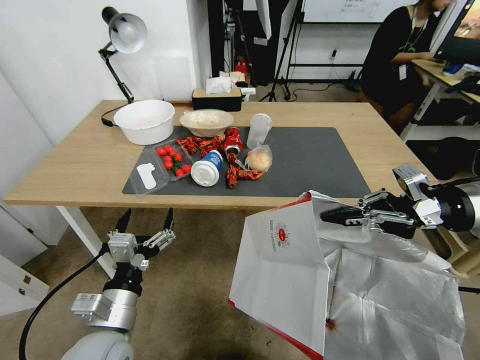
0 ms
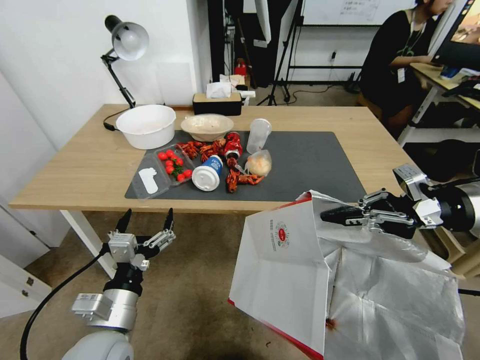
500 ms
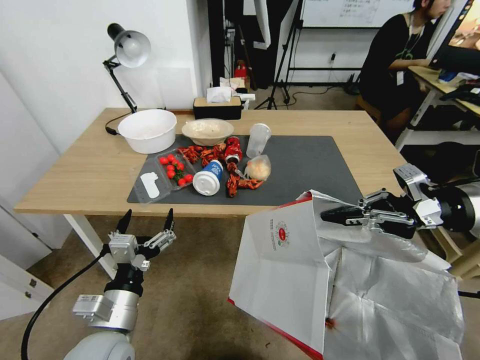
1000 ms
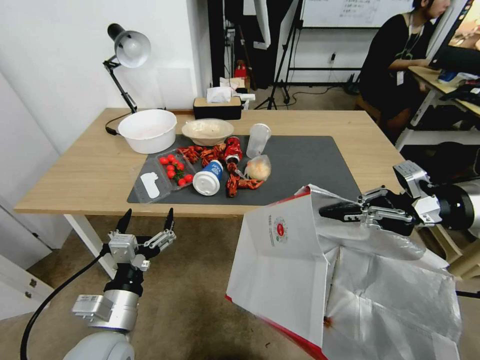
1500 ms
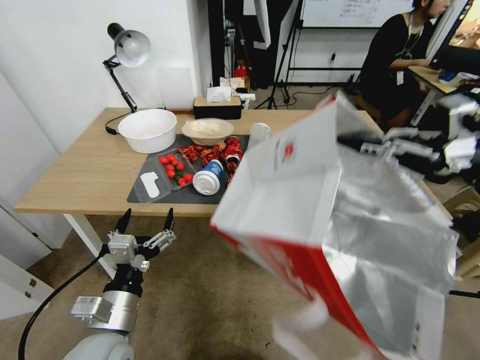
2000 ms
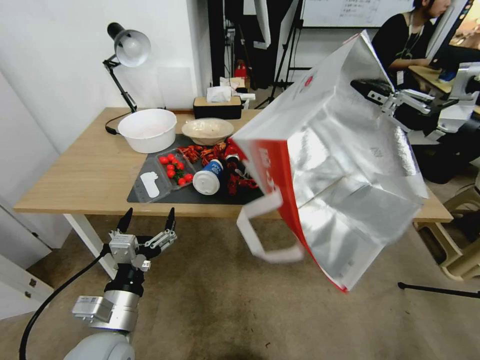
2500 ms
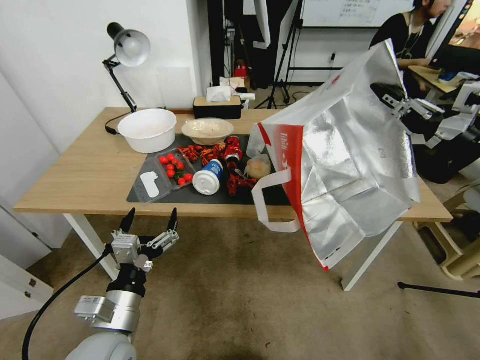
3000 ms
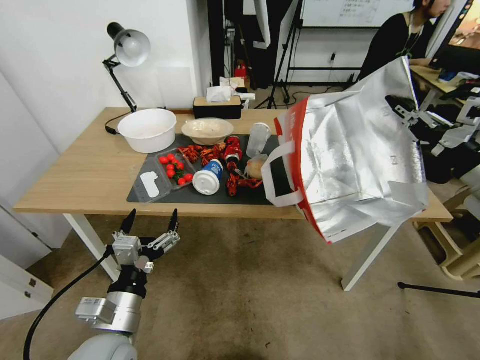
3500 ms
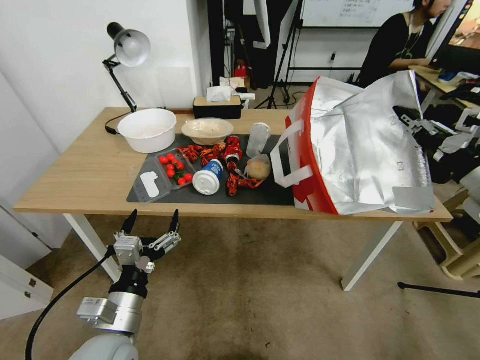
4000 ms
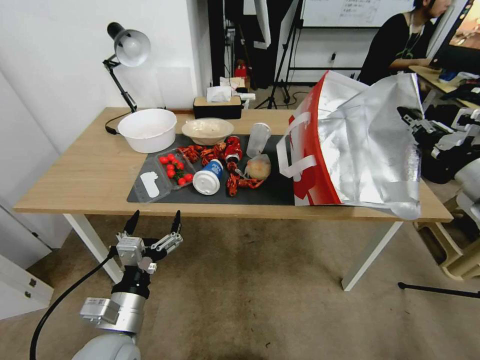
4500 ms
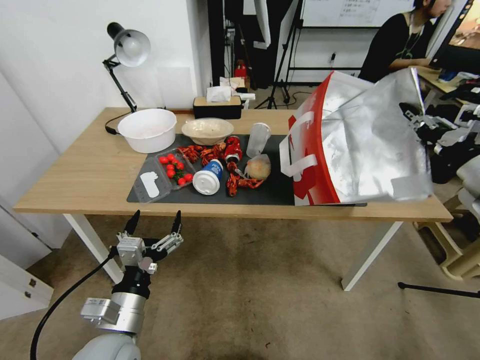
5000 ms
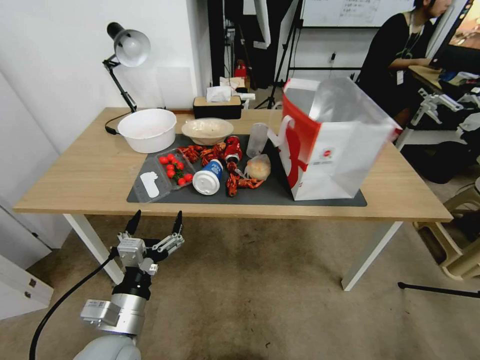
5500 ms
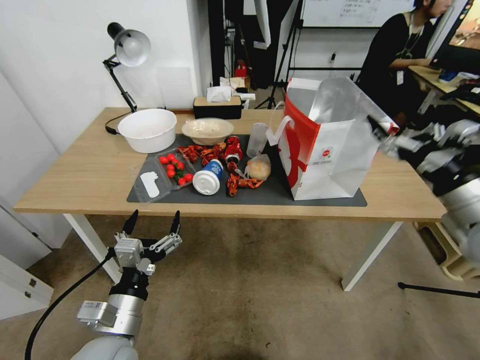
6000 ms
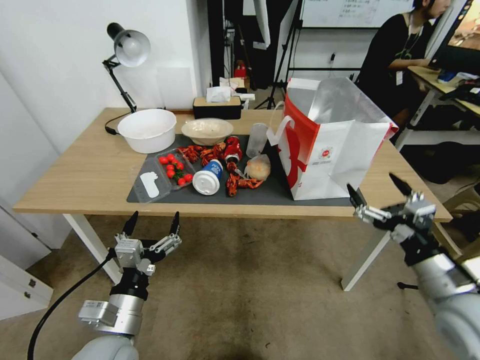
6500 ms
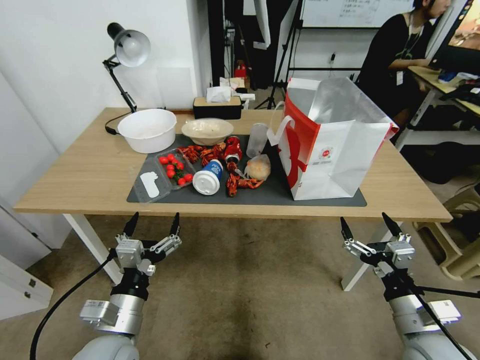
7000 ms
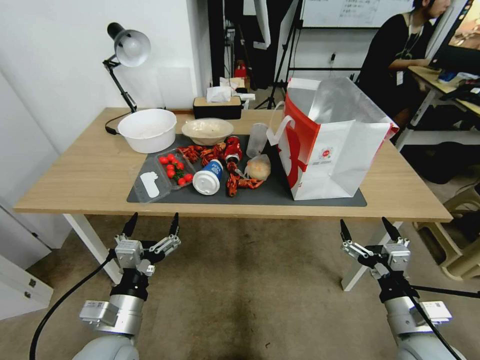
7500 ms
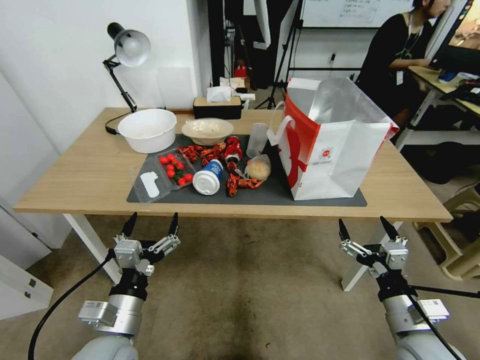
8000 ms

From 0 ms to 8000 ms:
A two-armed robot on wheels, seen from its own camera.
Task of the whole recording: Pick up the food delivery bag from the floor and place it on the table.
From 0 ms to 2000 ms: The right gripper moves upward, some 5 cm.
From 2000 ms to 4000 ms: The right gripper is displaced downward by some 5 cm.
From 4000 ms to 6000 ms: The right gripper opens its fingers.
From 6000 ms to 8000 ms: The right gripper is displaced downward, backward and to the left by some 25 cm.
